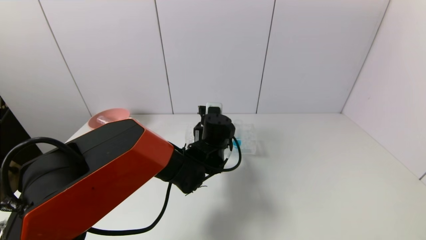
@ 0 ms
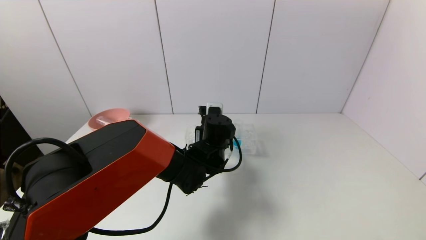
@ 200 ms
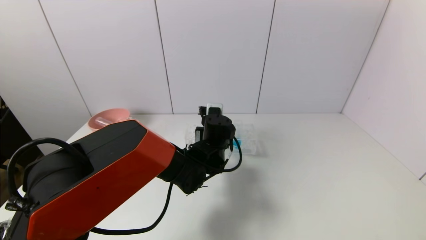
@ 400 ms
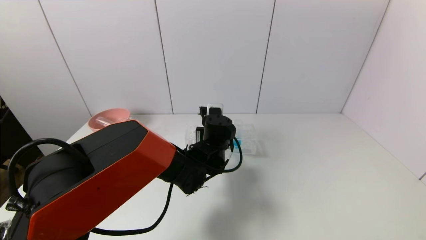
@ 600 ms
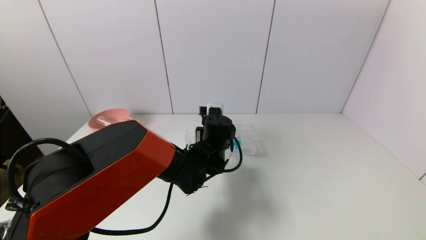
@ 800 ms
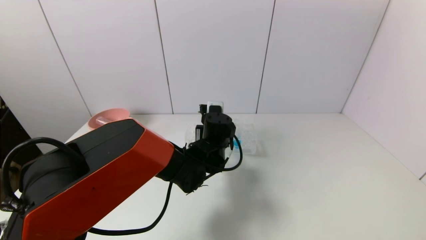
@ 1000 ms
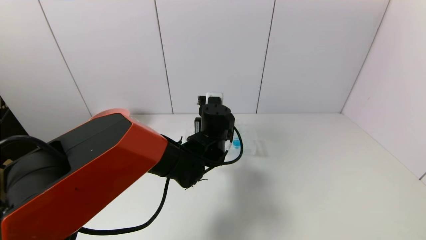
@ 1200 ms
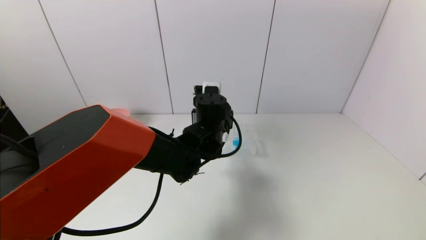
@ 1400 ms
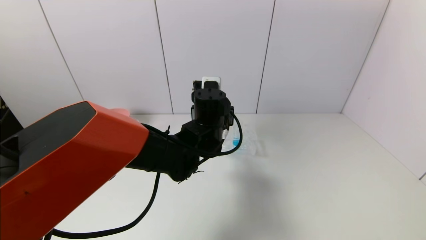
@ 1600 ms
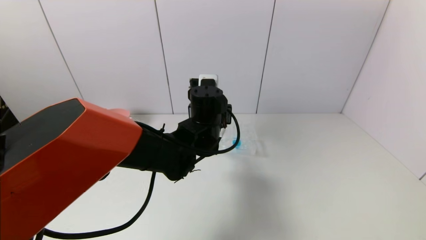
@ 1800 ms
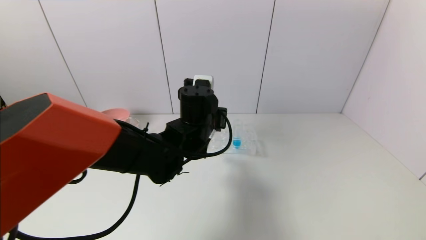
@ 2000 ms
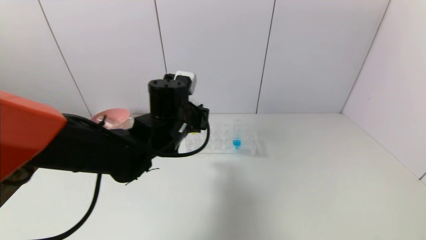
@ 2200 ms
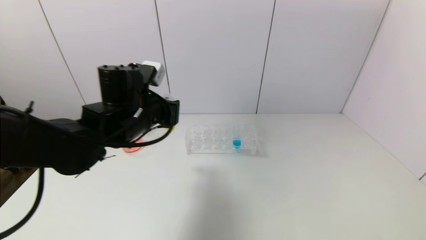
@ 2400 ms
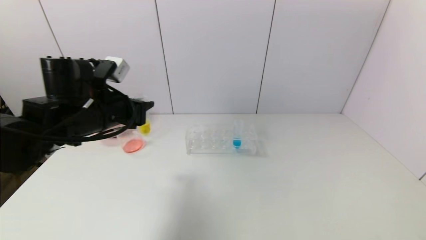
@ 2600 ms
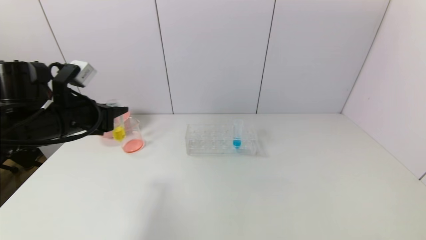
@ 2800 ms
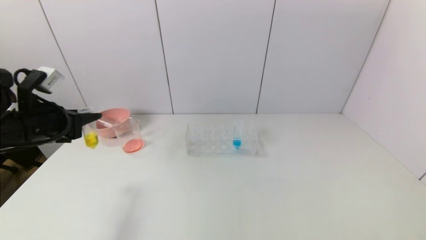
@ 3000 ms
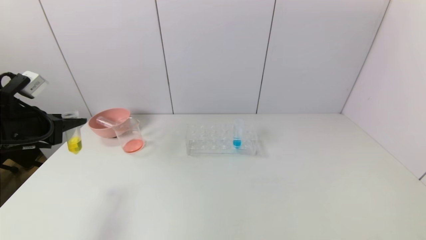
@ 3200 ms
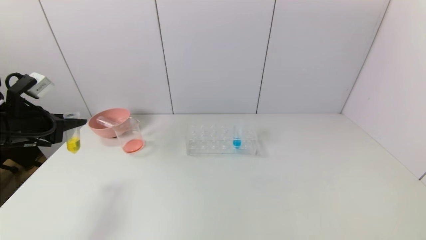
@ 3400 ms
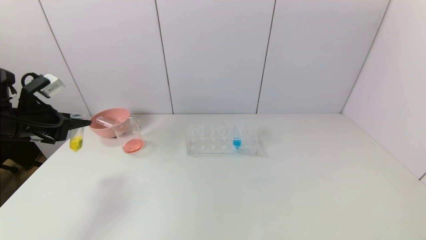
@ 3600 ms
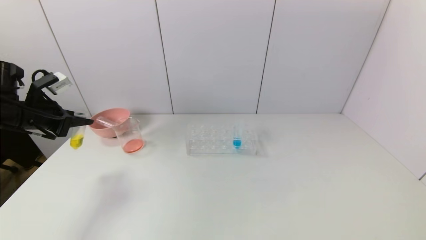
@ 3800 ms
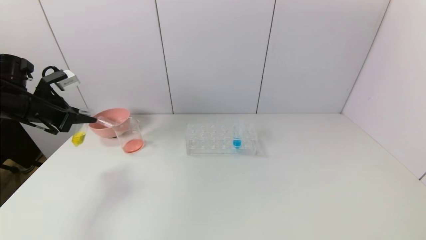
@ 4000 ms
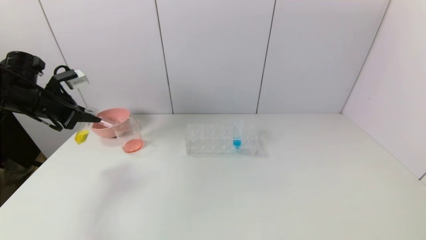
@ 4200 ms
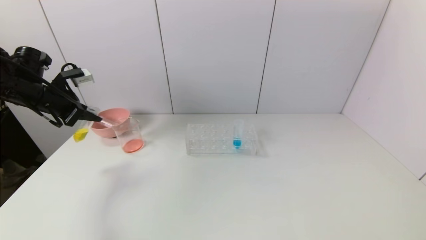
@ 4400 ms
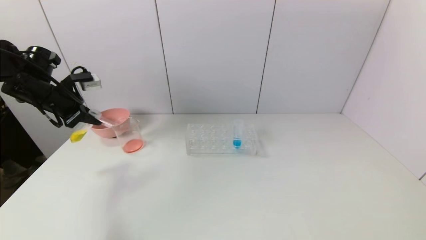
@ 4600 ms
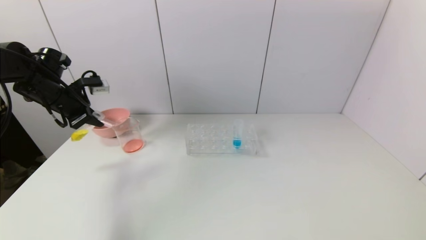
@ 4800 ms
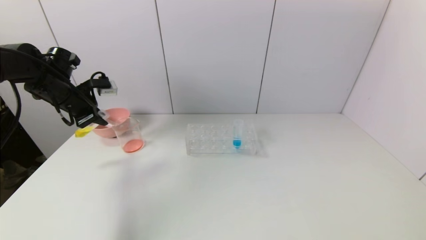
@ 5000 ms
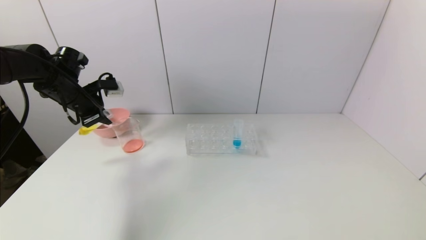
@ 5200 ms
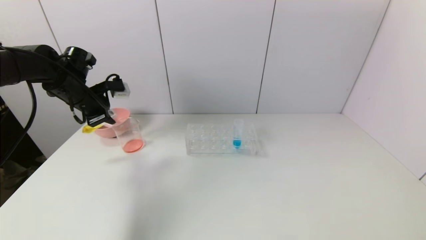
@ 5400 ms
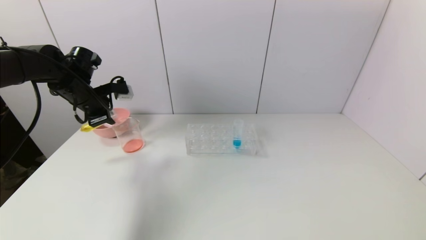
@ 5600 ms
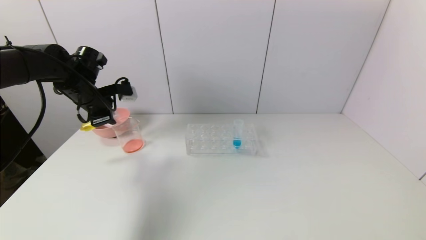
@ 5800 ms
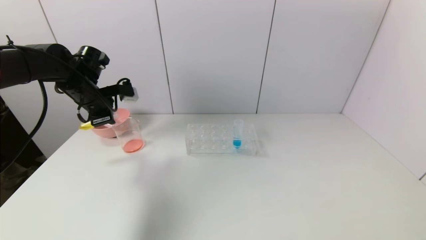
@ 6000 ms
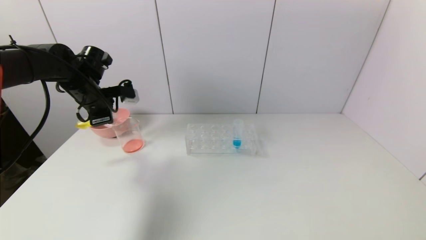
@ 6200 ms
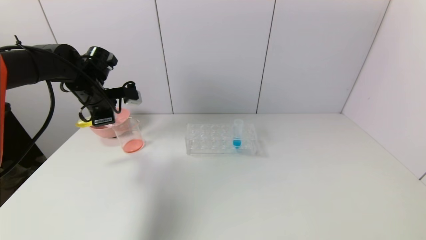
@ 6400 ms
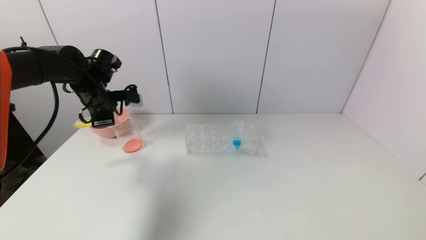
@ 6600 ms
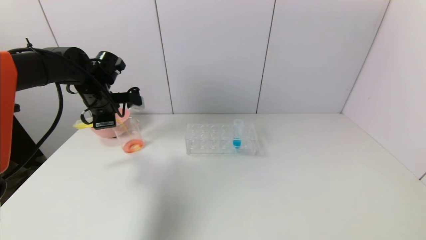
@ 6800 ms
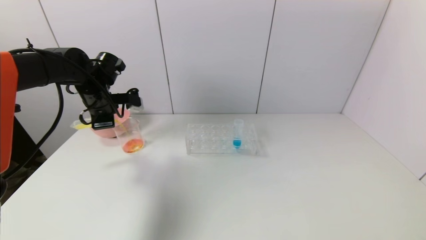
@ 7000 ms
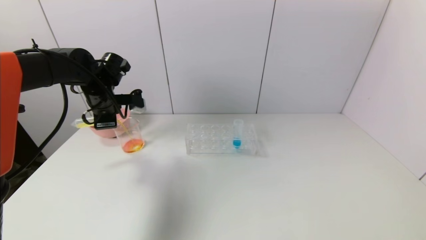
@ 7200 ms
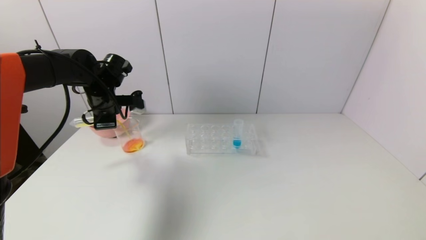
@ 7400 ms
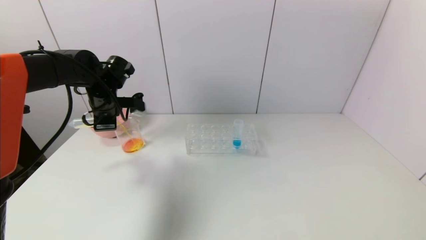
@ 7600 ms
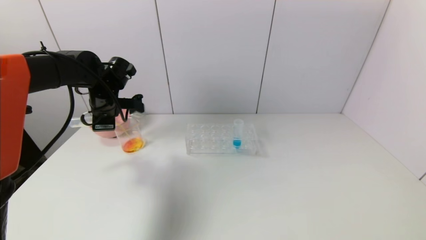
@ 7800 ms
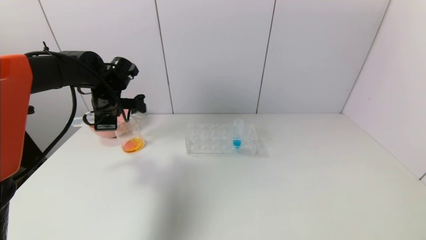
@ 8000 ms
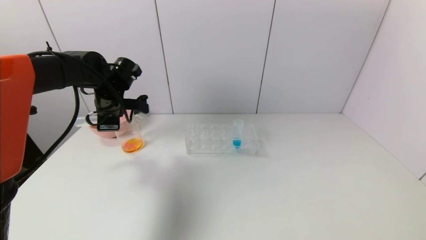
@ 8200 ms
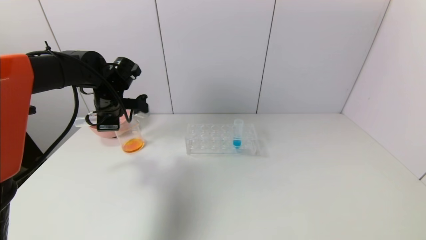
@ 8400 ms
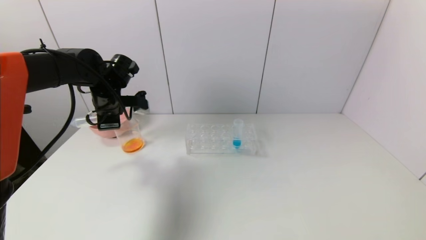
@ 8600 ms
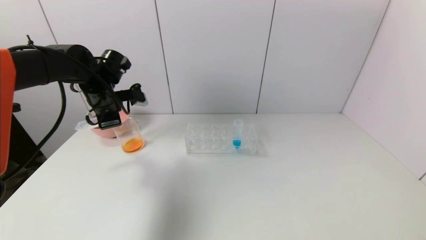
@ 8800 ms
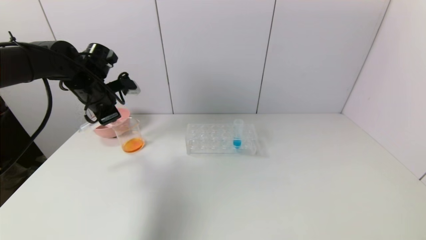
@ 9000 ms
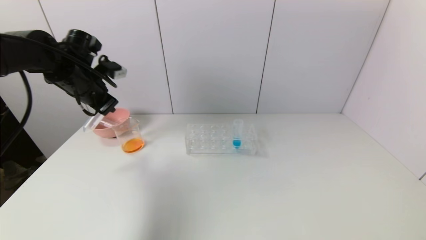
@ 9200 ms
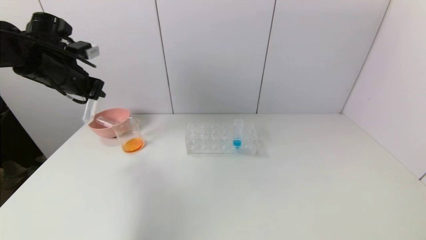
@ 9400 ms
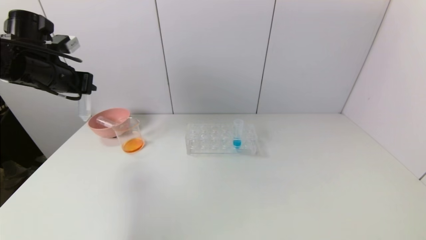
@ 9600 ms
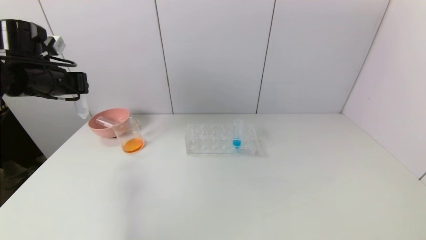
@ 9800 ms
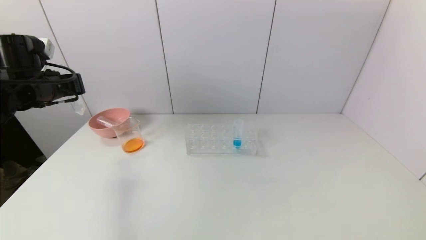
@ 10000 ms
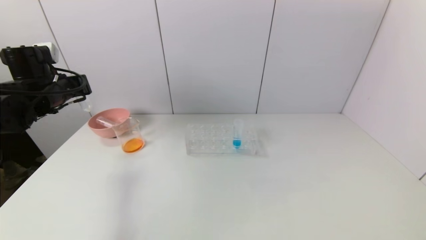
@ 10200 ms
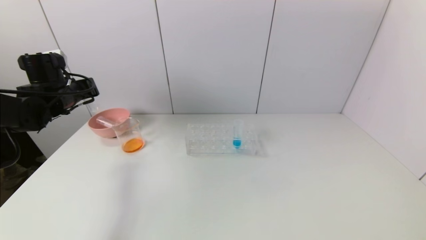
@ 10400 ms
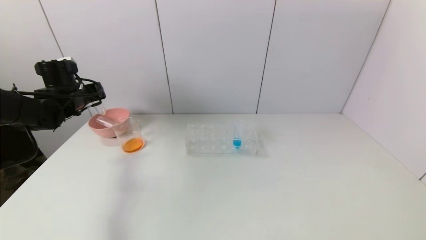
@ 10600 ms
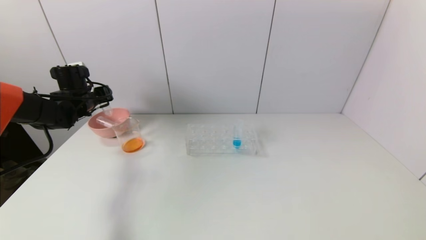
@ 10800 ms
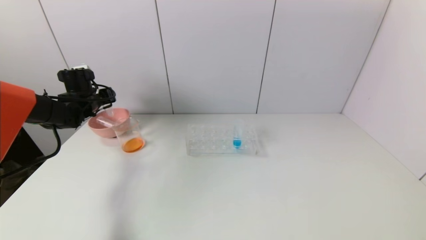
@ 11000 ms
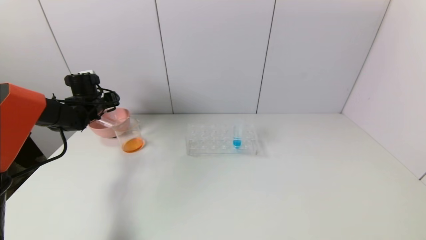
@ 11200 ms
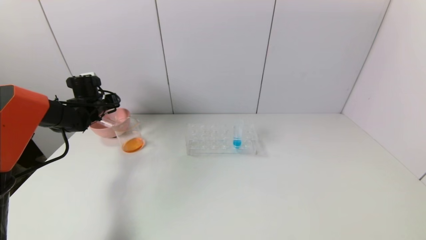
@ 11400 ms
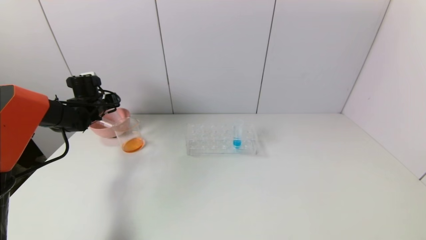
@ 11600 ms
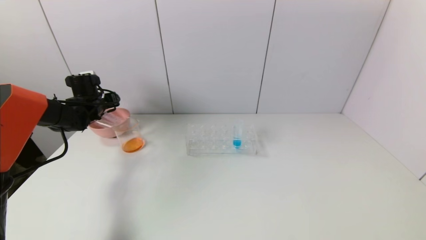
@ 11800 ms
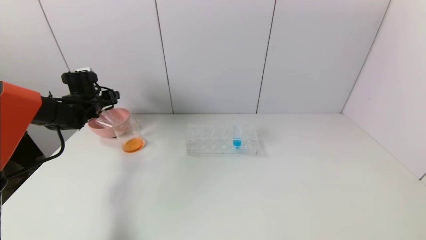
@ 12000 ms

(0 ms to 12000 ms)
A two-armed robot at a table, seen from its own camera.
Task of the whole recording: pick up the test tube with yellow pigment and the test tube with red pigment by grippers and pour them into the beaker.
Step, 600 ms - 8200 ms: Pour the yellow reagent into the graduated cylinder with the left gripper.
Step, 8400 ms - 12000 ms: Place the test tube into the pink bowl with the left gripper.
0 ms - 1600 ms: The left gripper travels upward by about 5 cm, and closes.
1600 ms - 3000 ms: The left gripper goes roughly 35 cm to the left.
3000 ms - 4400 ms: The left gripper travels forward by roughly 10 cm.
4400 ms - 6000 ms: The left gripper goes approximately 10 cm to the right.
9000 ms - 10400 ms: The left gripper moves to the left, approximately 5 cm.
10400 ms - 12000 ms: The left gripper travels forward and downward by about 10 cm, and opens.

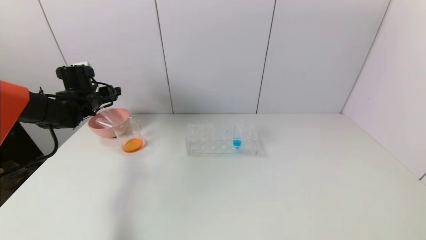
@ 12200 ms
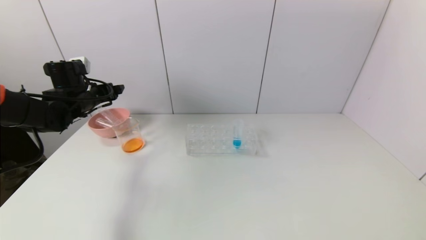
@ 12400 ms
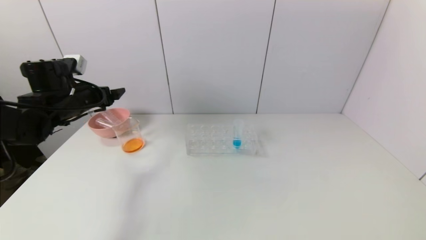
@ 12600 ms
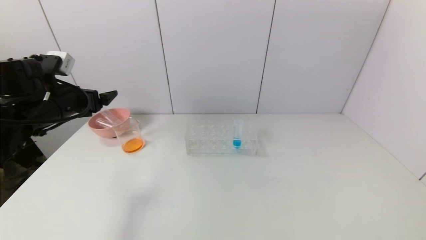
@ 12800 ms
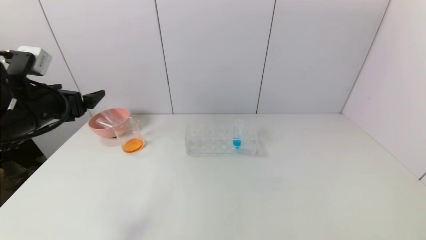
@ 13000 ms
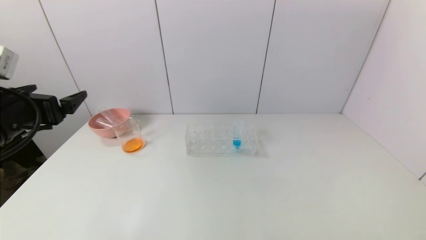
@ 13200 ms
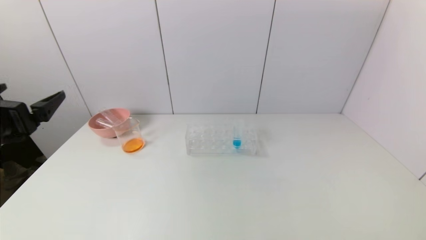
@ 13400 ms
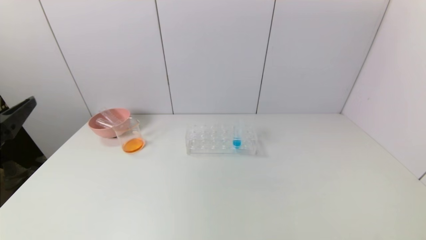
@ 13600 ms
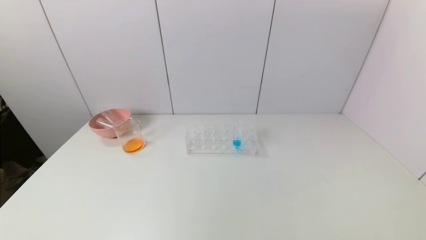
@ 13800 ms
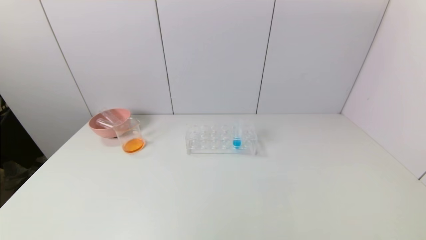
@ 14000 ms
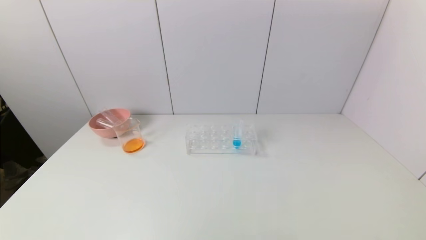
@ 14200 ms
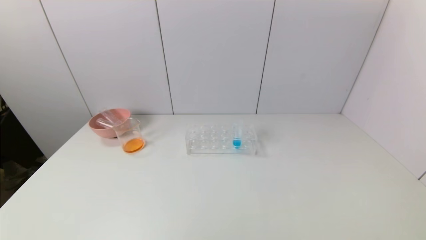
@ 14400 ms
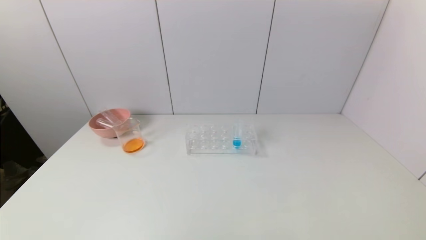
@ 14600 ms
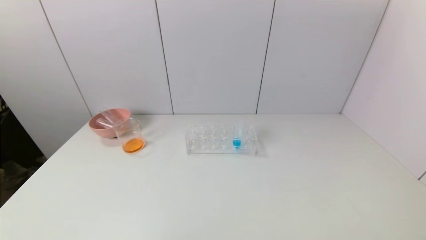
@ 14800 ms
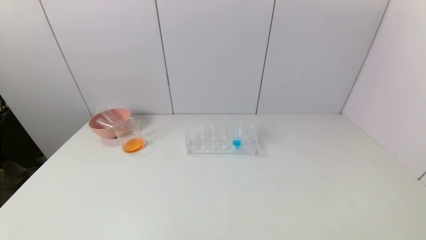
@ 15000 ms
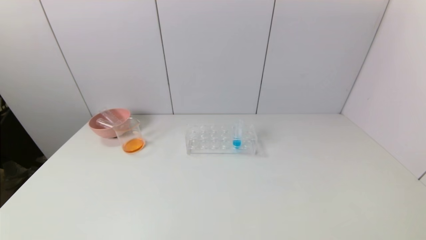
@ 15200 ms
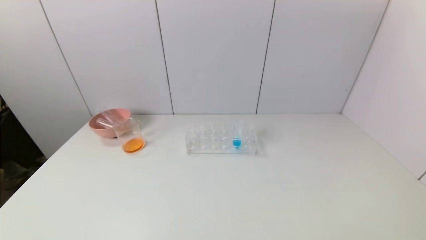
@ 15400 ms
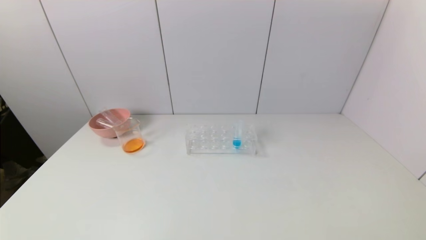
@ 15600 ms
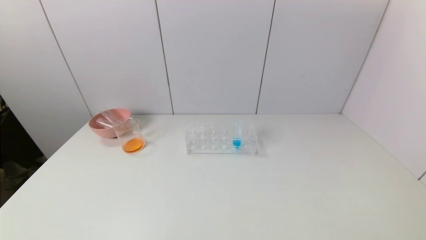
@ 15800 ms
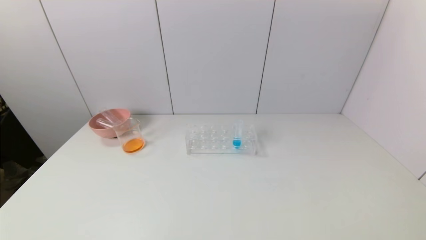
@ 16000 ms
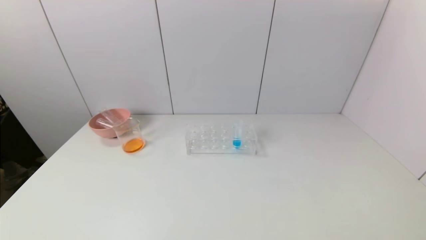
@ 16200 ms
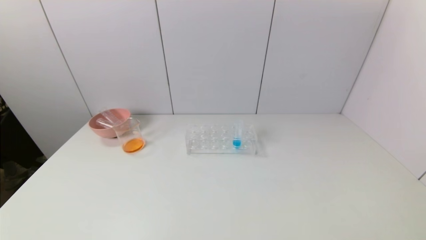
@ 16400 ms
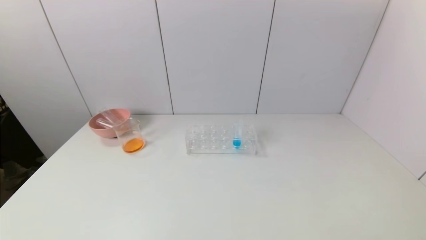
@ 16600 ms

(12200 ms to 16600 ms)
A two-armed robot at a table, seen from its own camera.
Task of the whole recording: pick up the test tube with yellow pigment and the test tube with red pigment by grippers and pour them into the beaker.
12200 ms - 13600 ms: The left gripper shifts approximately 35 cm backward.
15200 ms - 16600 ms: Both grippers stay put.
